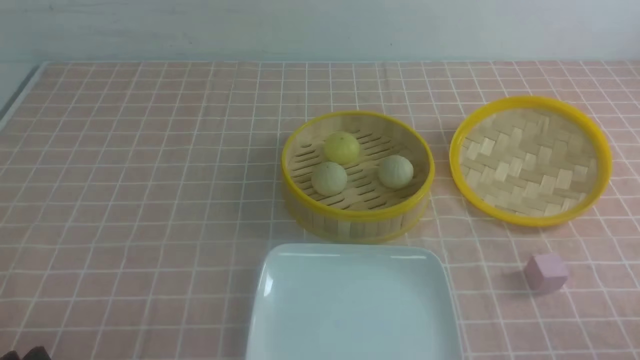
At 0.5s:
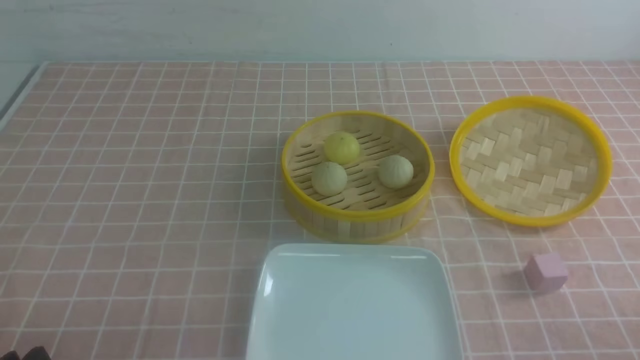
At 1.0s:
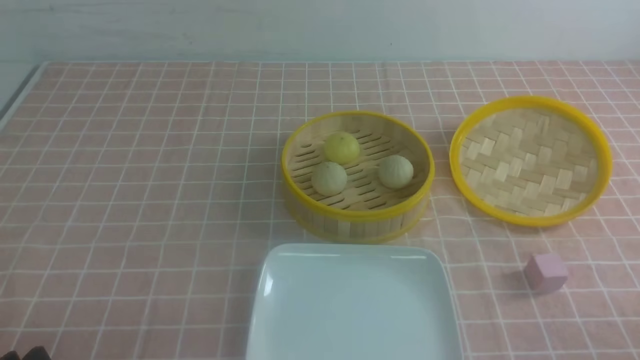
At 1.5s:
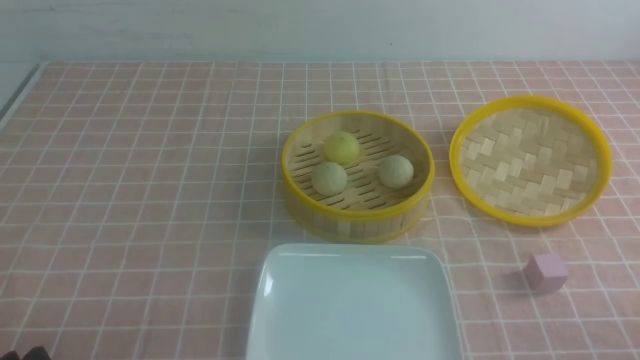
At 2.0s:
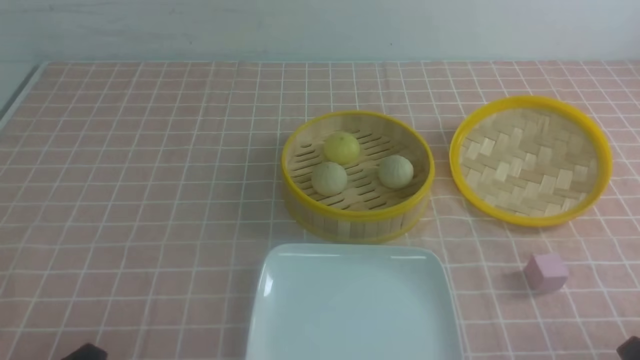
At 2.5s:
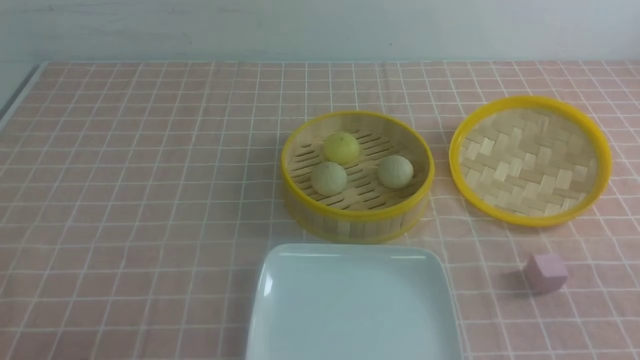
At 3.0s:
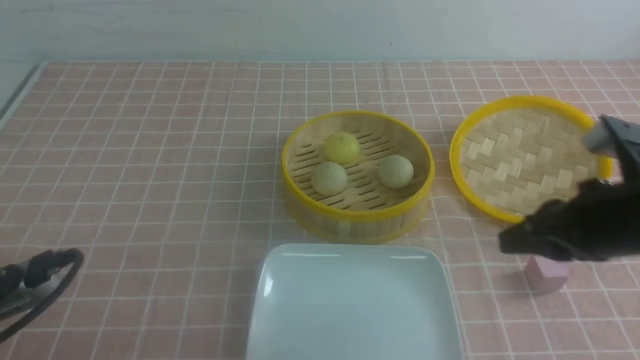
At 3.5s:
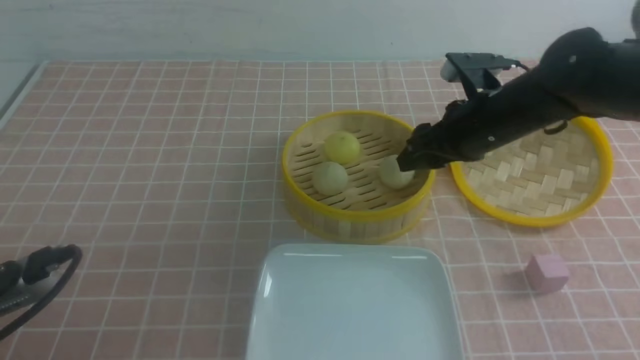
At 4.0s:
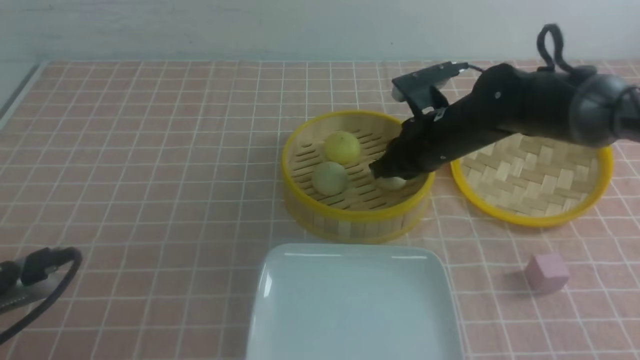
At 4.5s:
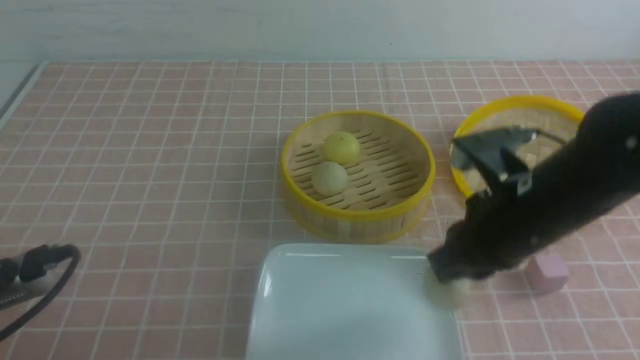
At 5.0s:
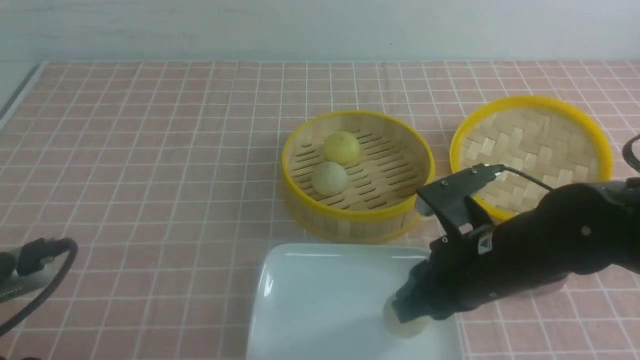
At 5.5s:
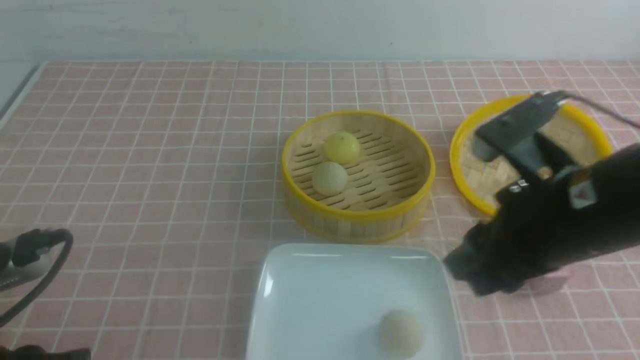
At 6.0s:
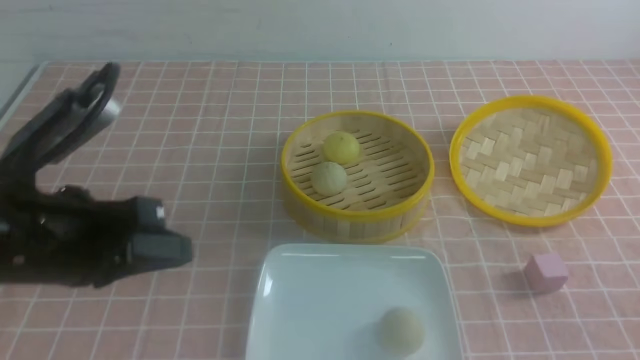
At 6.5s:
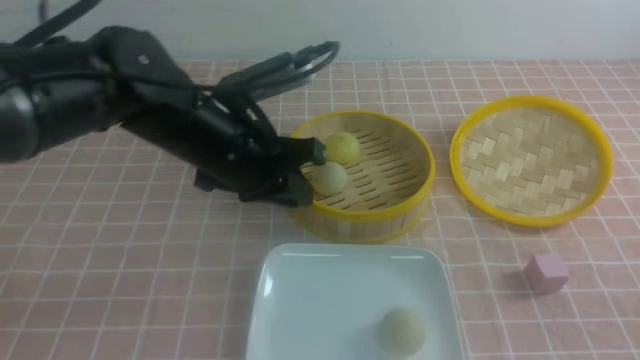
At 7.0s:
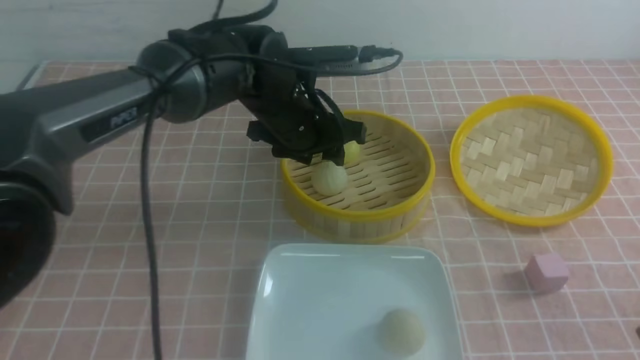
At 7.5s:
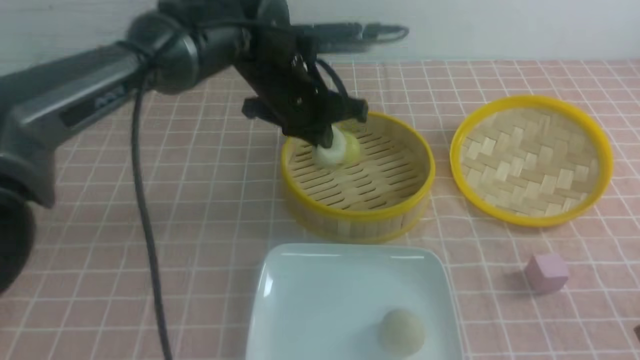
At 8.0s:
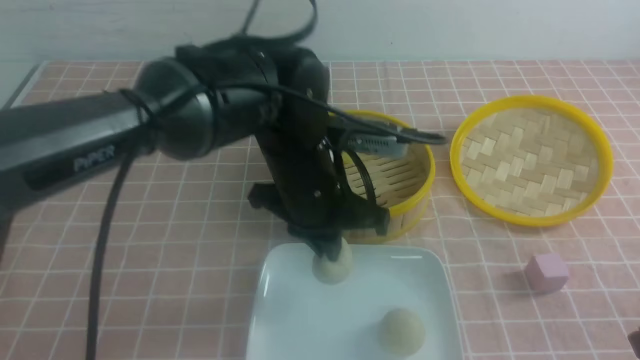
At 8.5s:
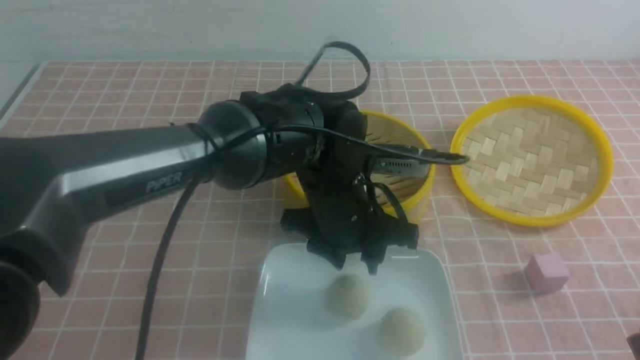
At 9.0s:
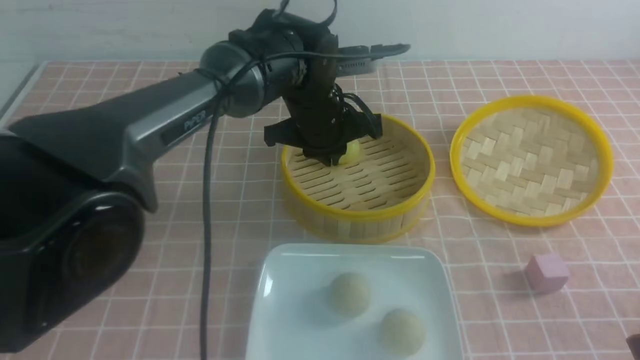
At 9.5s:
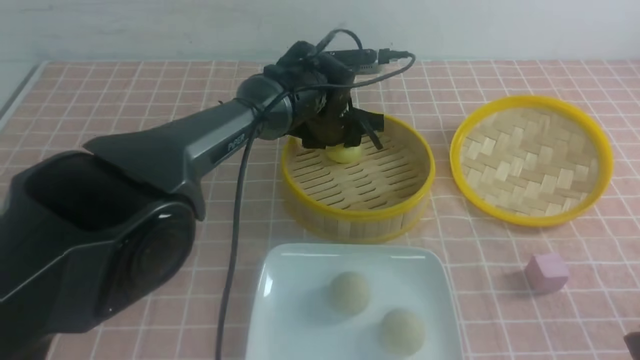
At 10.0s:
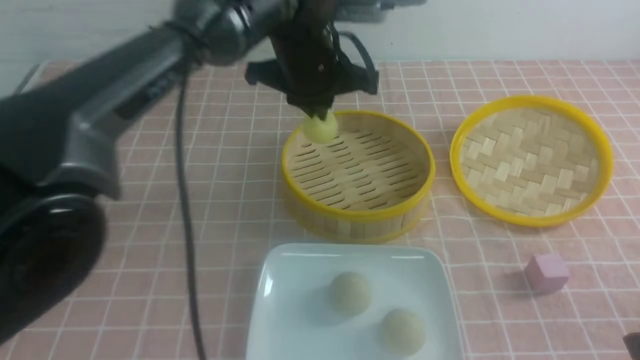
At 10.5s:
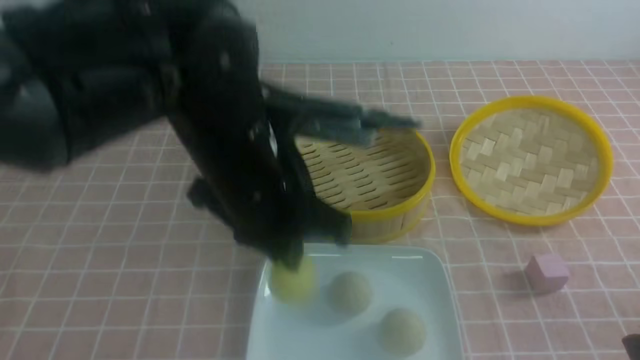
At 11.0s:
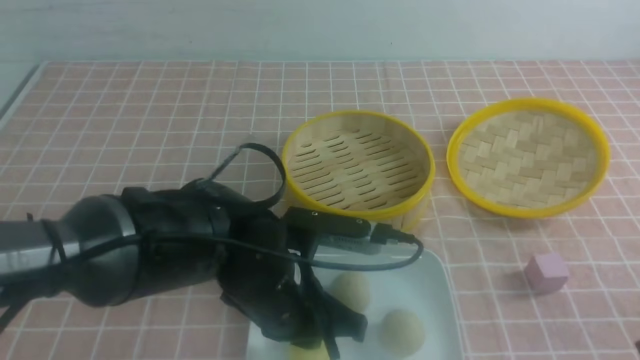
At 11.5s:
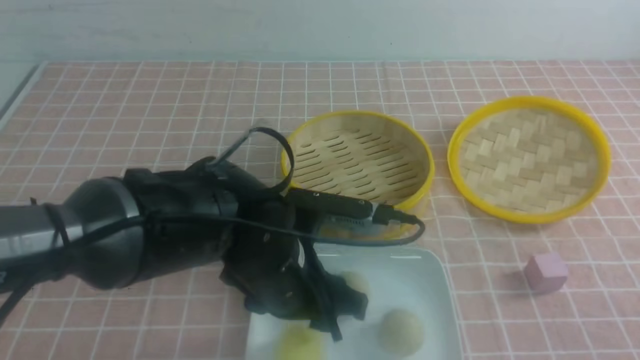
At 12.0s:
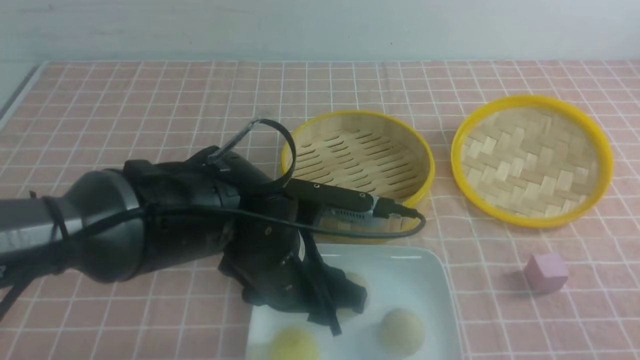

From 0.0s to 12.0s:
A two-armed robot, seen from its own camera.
Step, from 0.0s to 3.5s: use the right arm to grab the steamed stuffed bun that is closest to it.
Step, from 4.5s to 5.0s: use the right arm to put the steamed stuffed bun into the plate.
Step, from 5.5s to 7.0s: use the left arm to grab the steamed stuffed bun that is closest to it.
Step, from 7.5s to 8.0s: use the left arm to put the steamed stuffed bun into the plate.
Step, from 8.5s to 9.5s: use the left arm to grab the steamed stuffed bun that is closest to it.
Step, from 10.0s to 11.0s: use the left arm to put the steamed stuffed bun into the plate.
From 2.0s to 4.0s: The right gripper is displaced forward and to the left by roughly 35 cm, and closes, while the left gripper heads upward, covering about 5 cm, and closes up.
From 4.0s to 6.0s: The left gripper moves forward and upward, some 10 cm, while the right gripper heads backward and to the right, covering roughly 30 cm, and opens and closes again.
From 6.0s to 8.0s: The left gripper is displaced to the right and forward by about 20 cm, and opens and closes again.
From 8.0s to 10.0s: The left gripper goes roughly 10 cm forward and upward, and opens and closes again.
From 10.0s to 12.0s: The right gripper shifts by roughly 5 cm, and closes. The left gripper shifts roughly 20 cm backward and downward, and opens its fingers.

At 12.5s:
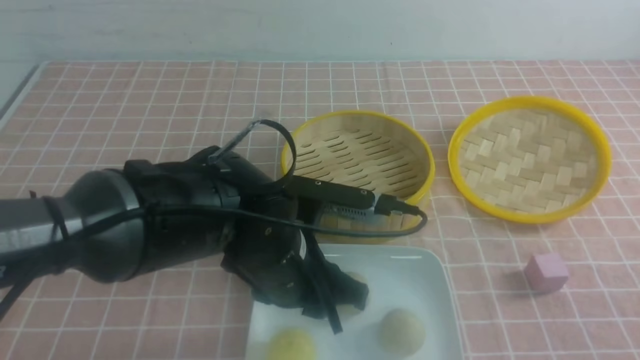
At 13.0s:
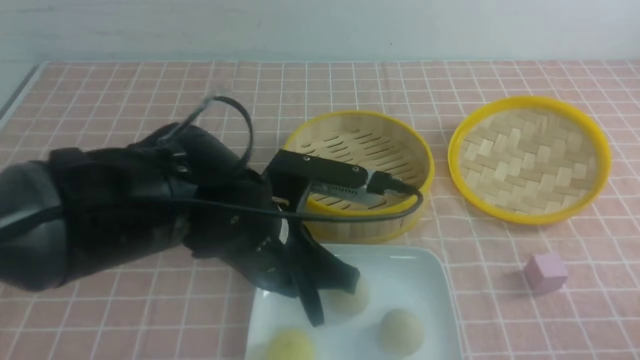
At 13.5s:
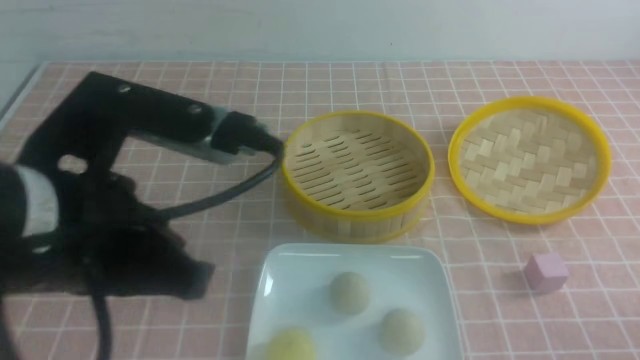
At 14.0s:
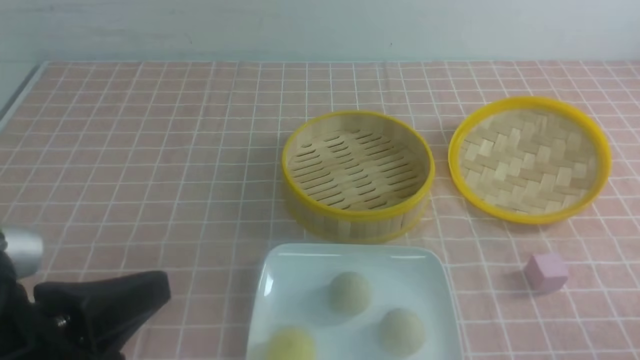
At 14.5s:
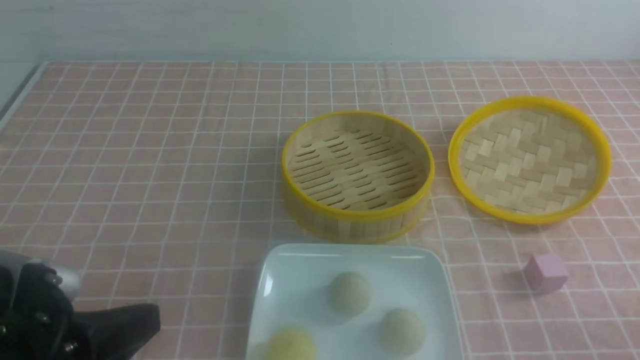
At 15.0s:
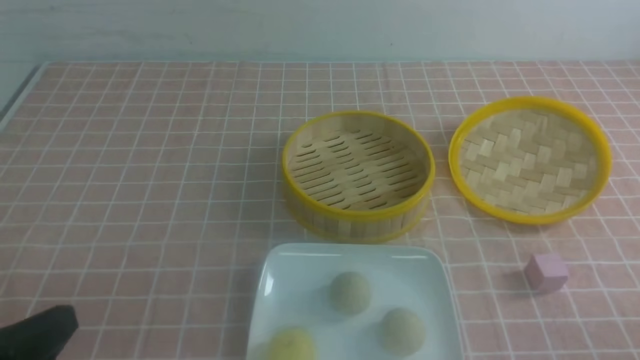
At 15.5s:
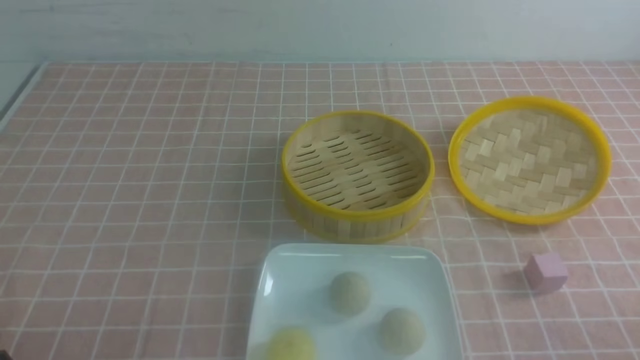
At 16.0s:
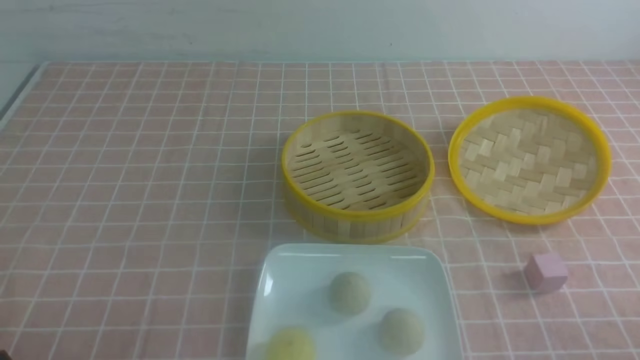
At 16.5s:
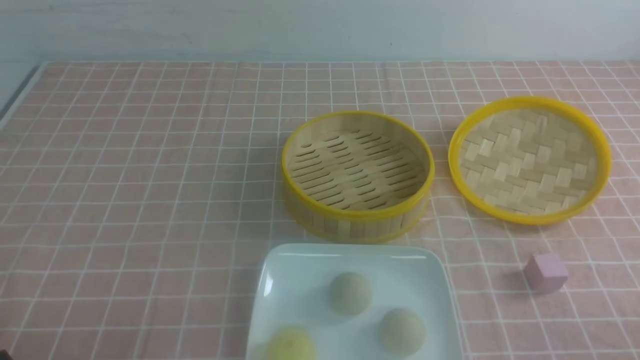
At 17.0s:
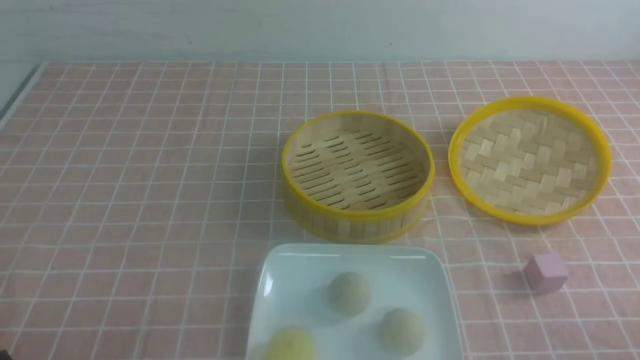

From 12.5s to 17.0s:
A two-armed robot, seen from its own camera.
From 12.5s to 14.5s: The right gripper heads downward, covering approximately 10 cm, while the left gripper goes approximately 20 cm to the left and backward, and closes its fingers.
From 14.5s to 17.0s: The left gripper heads downward and to the left, covering roughly 15 cm.

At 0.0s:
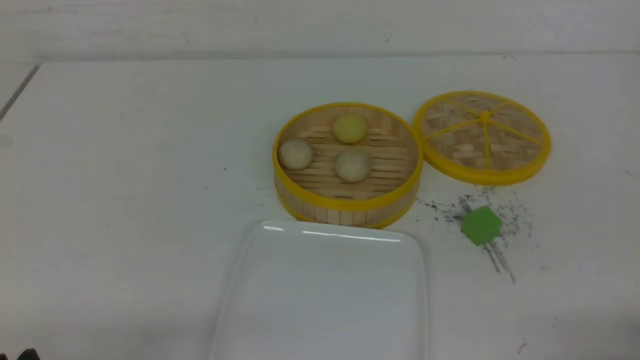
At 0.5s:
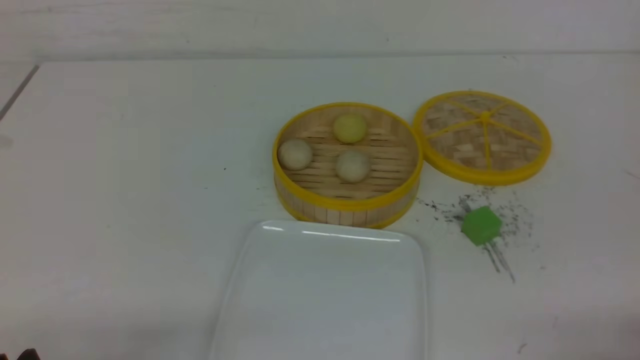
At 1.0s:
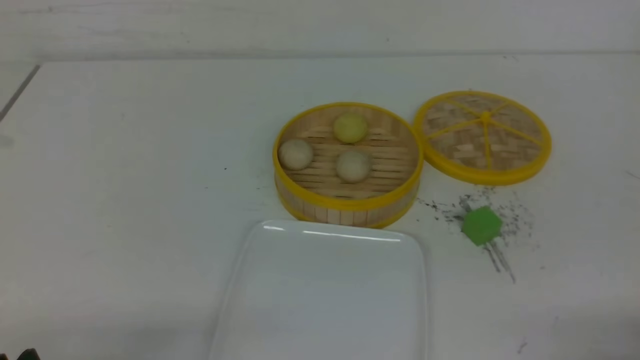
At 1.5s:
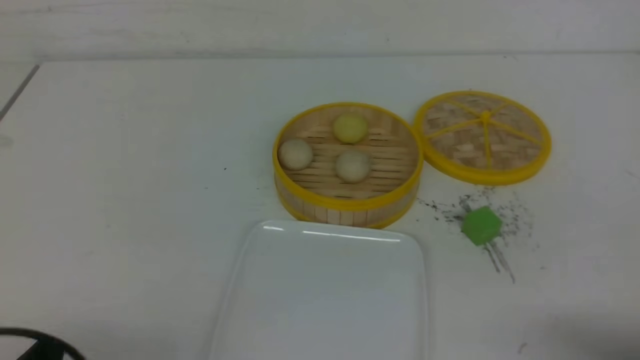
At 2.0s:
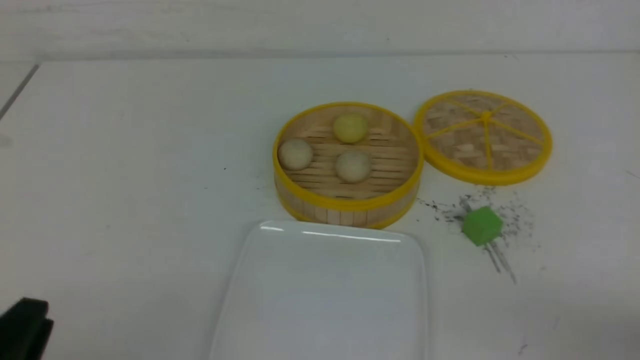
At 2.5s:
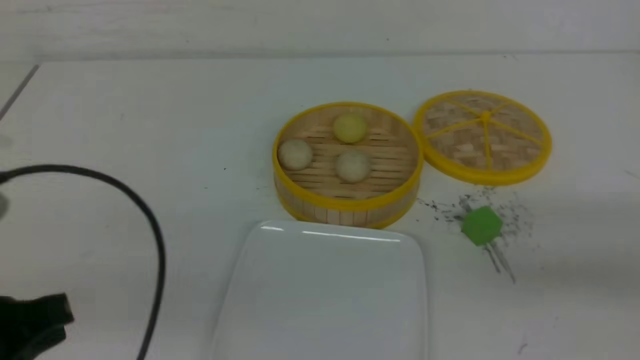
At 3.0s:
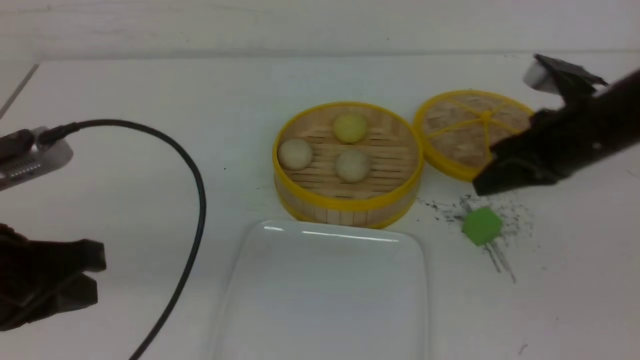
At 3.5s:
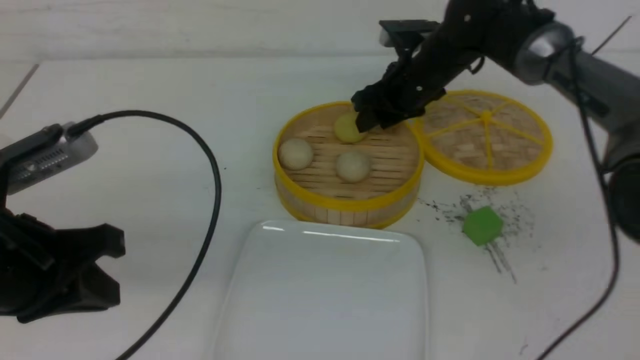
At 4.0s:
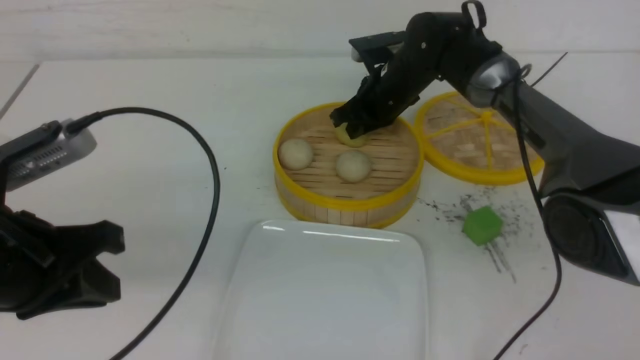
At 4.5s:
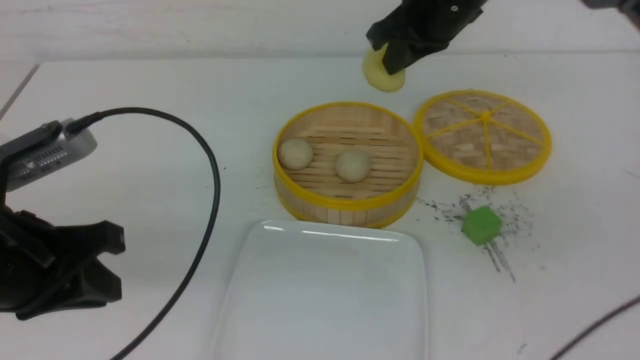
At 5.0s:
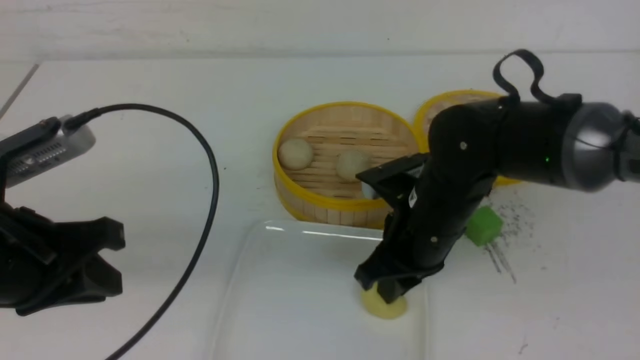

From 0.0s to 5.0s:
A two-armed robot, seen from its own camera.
Step, from 0.0s to 4.0s: use the right arm to grab the steamed stuffed bun that is closest to it.
From 0.0s to 2.5s: Both grippers move upward and forward, some 15 cm. The right gripper closes its fingers. The left gripper closes its fingers.
From 2.5s to 5.0s: The left gripper moves forward, approximately 5 cm, while the right gripper travels to the left and forward by approximately 25 cm, and opens.
